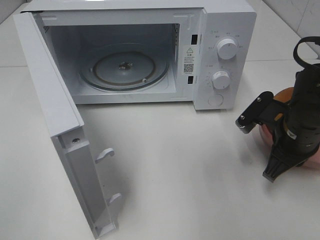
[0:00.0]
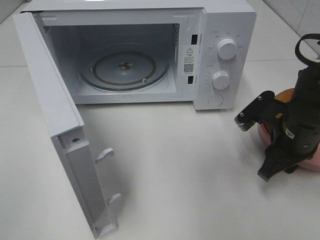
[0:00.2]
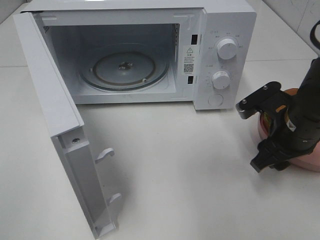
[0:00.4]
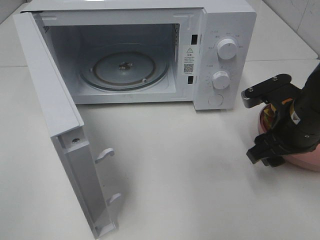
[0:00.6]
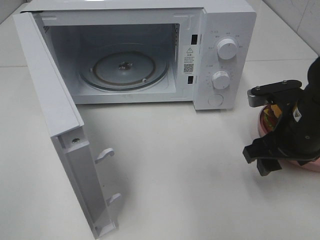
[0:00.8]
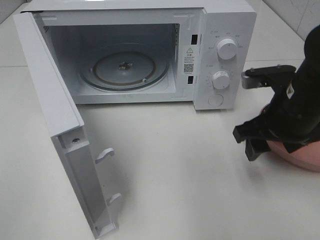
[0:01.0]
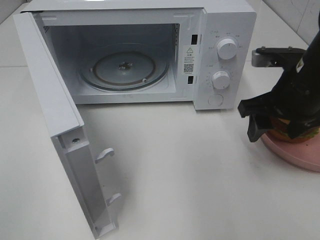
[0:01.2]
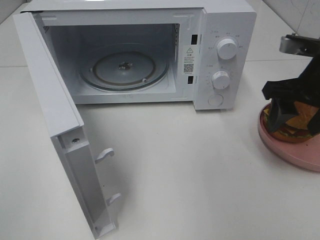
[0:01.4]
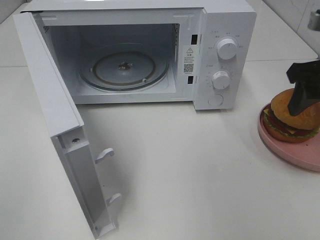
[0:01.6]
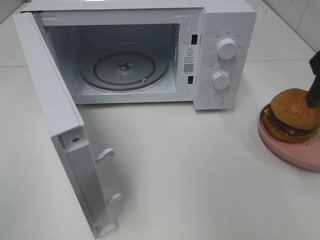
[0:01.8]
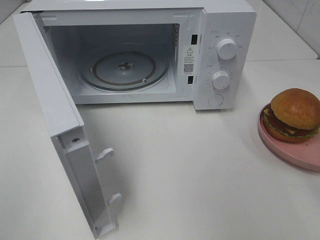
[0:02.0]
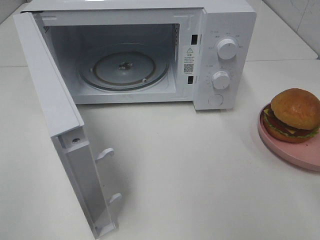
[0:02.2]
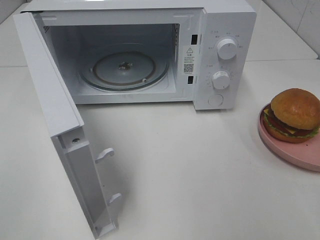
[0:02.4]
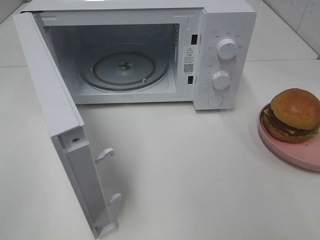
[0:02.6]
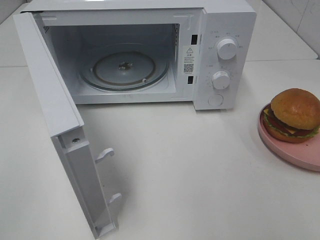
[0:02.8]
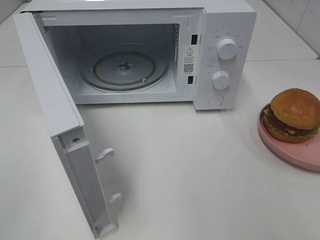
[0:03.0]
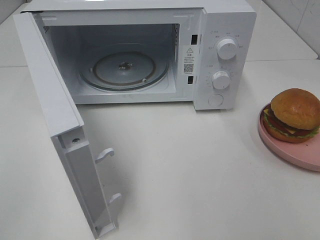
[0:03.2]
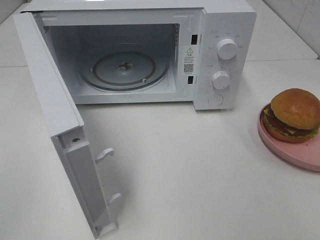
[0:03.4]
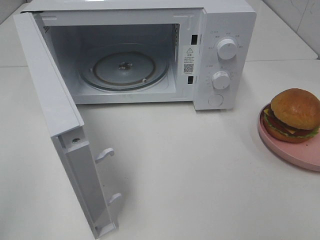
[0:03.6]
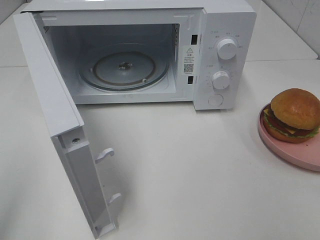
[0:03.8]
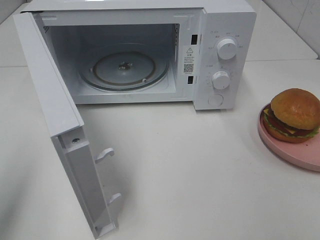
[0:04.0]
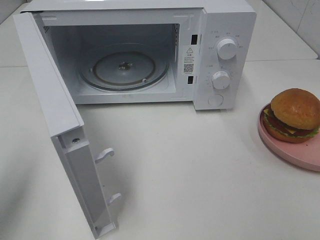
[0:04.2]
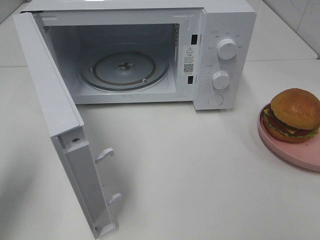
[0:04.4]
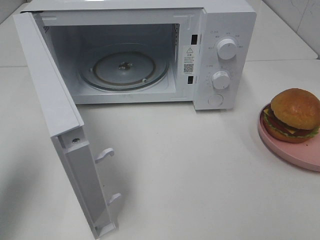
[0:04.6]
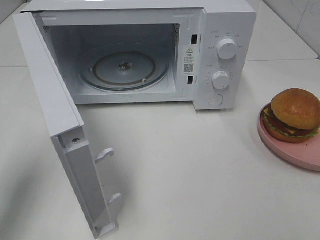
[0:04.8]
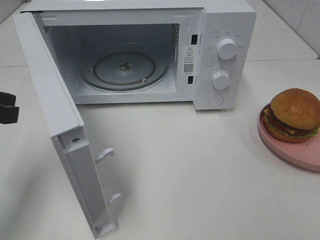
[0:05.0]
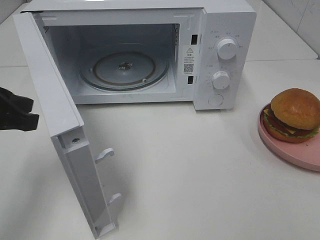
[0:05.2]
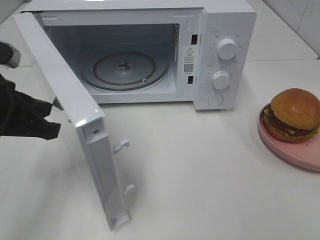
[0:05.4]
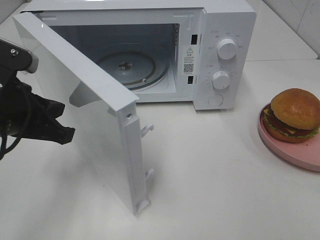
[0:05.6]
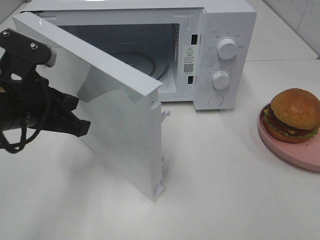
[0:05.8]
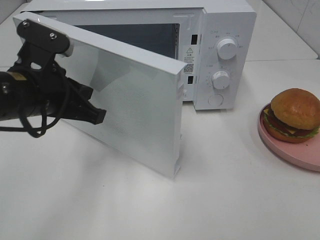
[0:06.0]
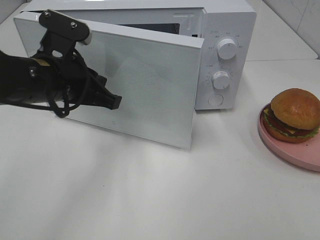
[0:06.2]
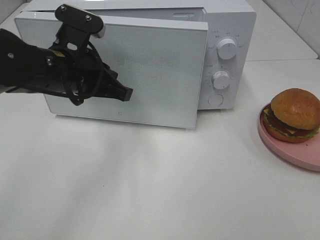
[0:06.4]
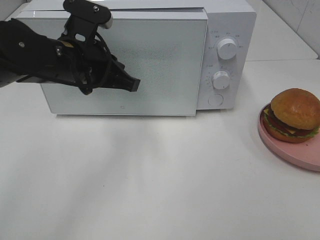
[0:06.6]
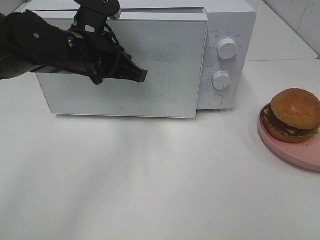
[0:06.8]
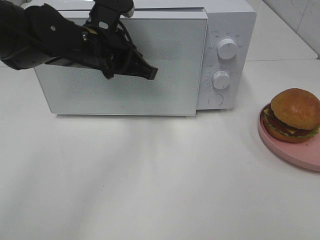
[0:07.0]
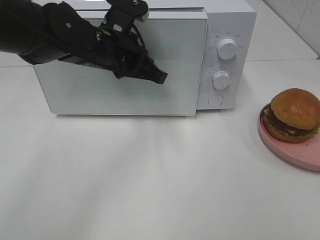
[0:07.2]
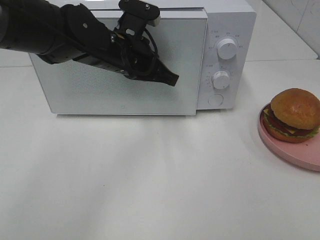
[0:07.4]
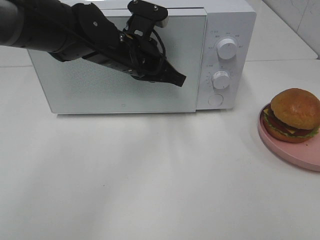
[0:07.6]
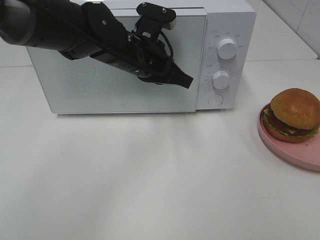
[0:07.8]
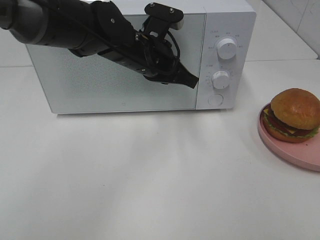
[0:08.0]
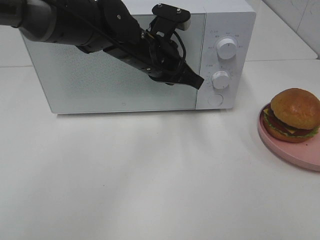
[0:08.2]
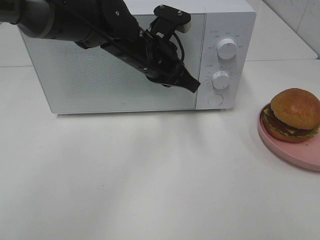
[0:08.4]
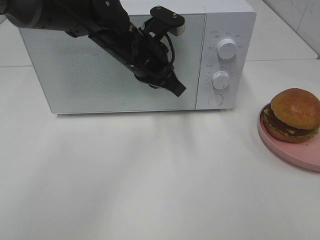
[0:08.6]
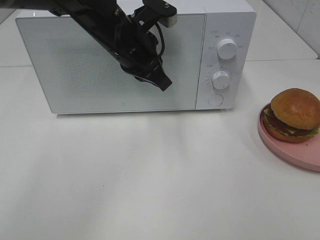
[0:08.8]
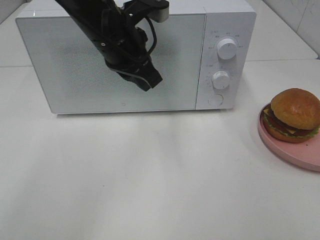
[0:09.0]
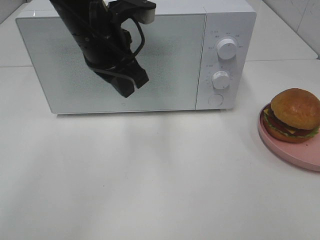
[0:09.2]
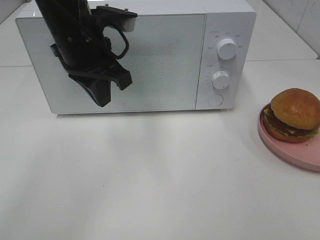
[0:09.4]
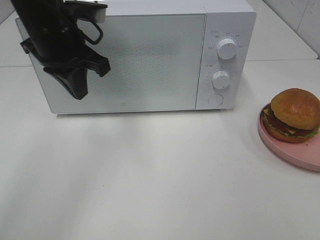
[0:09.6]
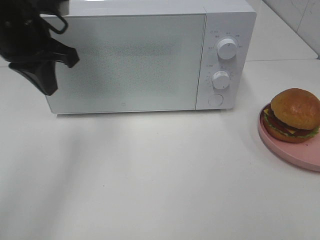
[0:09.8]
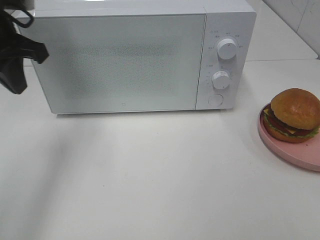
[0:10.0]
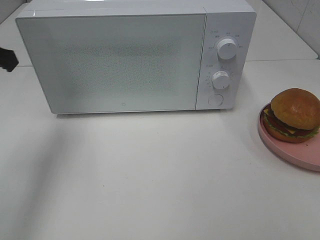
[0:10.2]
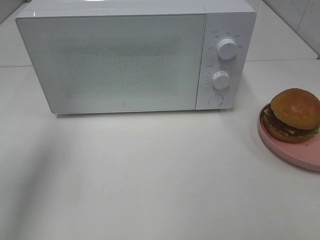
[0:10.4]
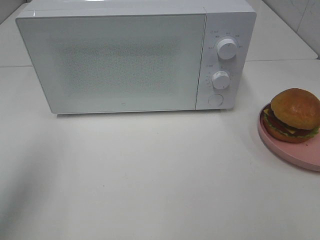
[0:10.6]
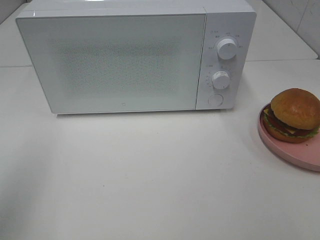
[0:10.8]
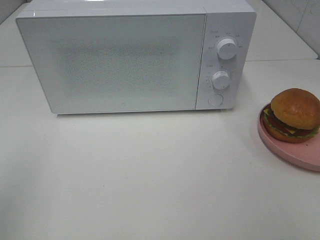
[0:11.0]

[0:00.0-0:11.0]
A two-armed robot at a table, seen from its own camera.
Task of the whole recording: Heat the burger.
Step, 0:00.2 to 0:08.2: Left hand: close the microwave door.
0:00.0 to 0:01.6: The right gripper shifts roughly 15 cm upward, and opens up.
0:01.6 to 0:03.2: The right gripper heads backward, covering some 25 cm.
0:03.2 to 0:04.8: The left gripper shifts some 20 cm forward.
0:04.8 to 0:06.2: The left gripper shifts about 15 cm to the right and forward.
0:06.2 to 0:07.8: The left gripper shifts some 15 cm to the right and forward.
0:07.8 to 0:09.4: The left gripper travels to the left and upward by some 10 cm.
0:09.4 to 0:11.0: The left gripper goes some 35 cm backward and to the left.

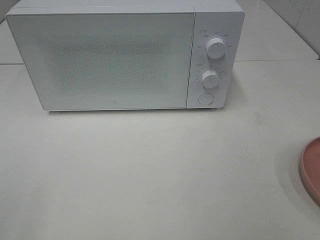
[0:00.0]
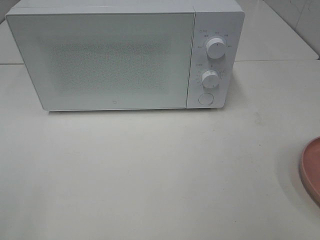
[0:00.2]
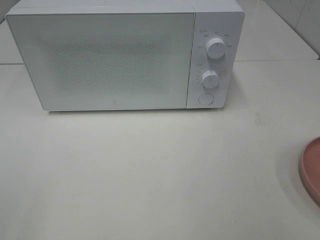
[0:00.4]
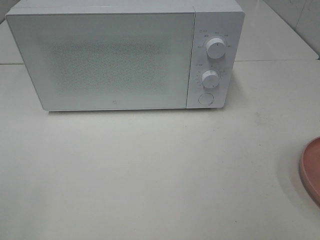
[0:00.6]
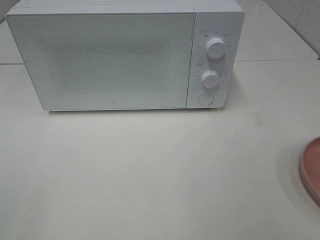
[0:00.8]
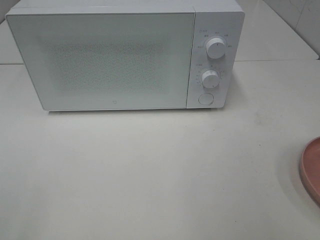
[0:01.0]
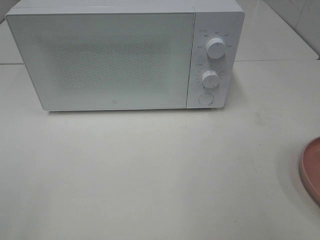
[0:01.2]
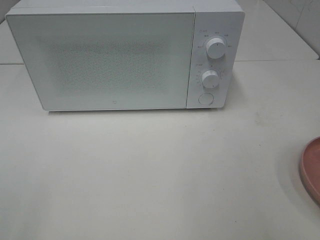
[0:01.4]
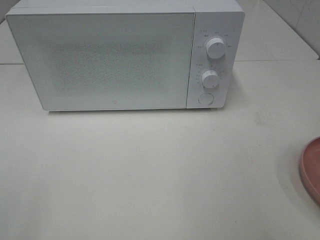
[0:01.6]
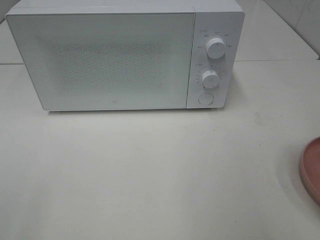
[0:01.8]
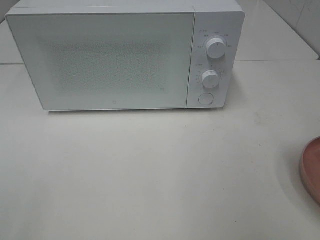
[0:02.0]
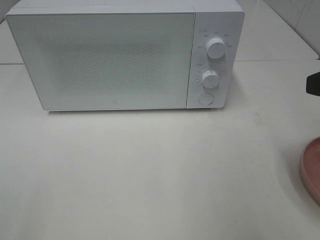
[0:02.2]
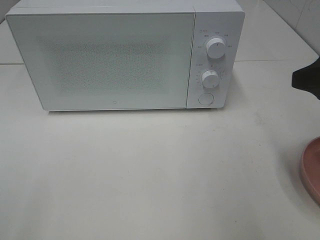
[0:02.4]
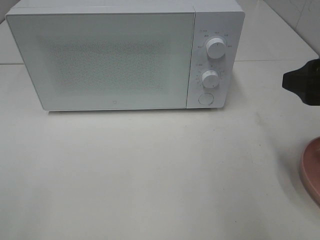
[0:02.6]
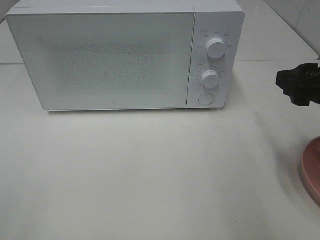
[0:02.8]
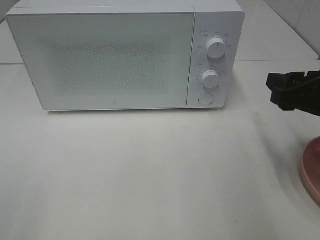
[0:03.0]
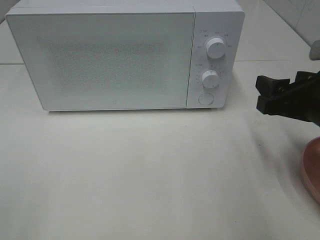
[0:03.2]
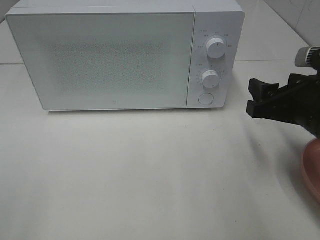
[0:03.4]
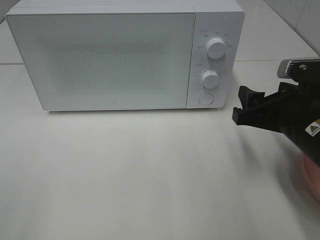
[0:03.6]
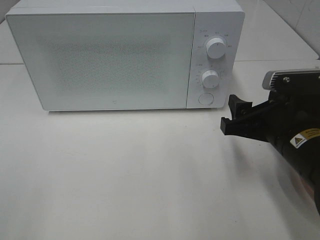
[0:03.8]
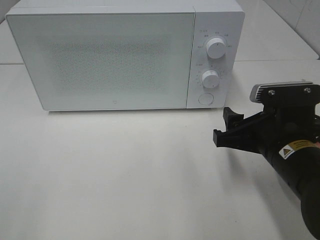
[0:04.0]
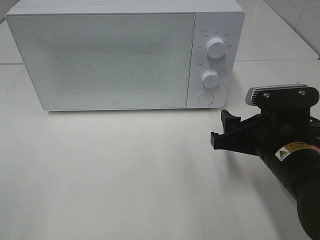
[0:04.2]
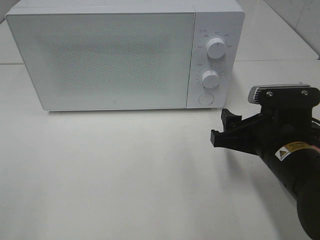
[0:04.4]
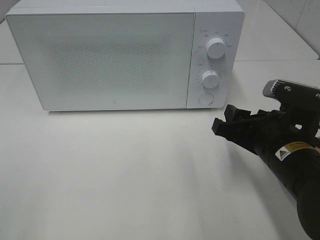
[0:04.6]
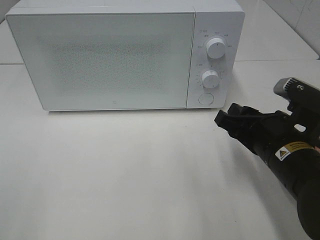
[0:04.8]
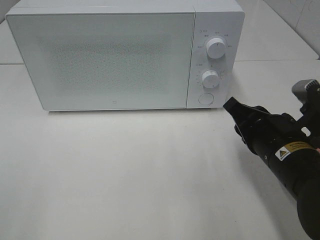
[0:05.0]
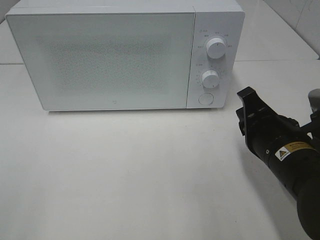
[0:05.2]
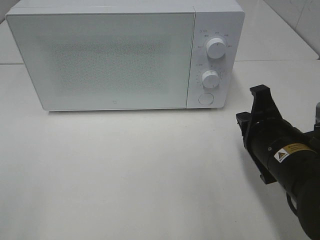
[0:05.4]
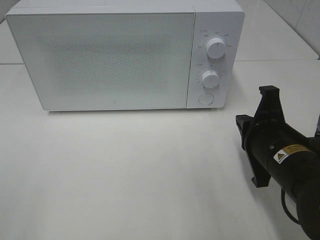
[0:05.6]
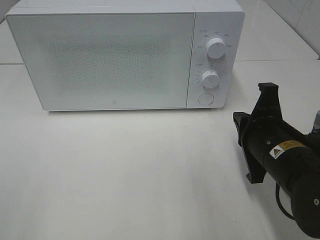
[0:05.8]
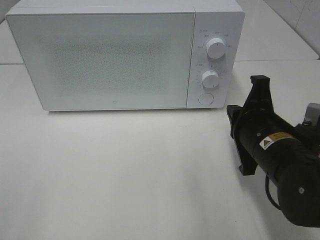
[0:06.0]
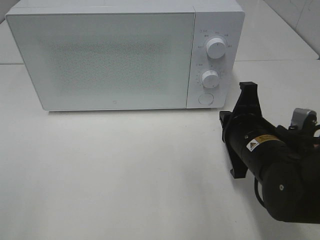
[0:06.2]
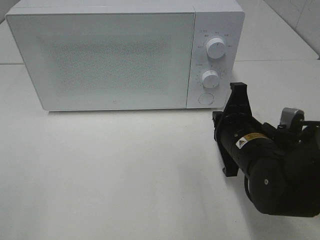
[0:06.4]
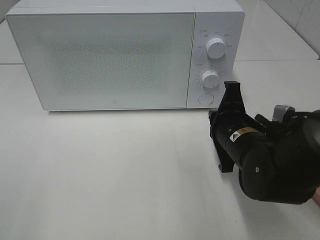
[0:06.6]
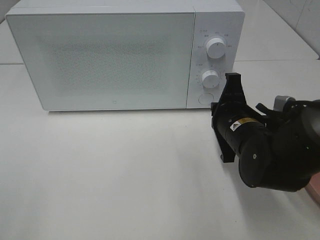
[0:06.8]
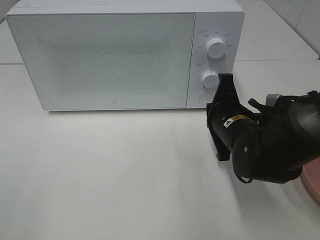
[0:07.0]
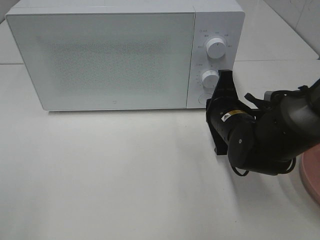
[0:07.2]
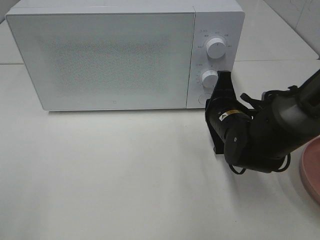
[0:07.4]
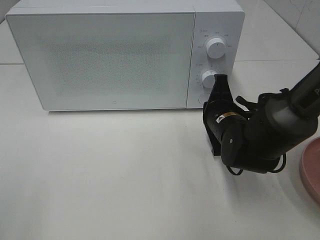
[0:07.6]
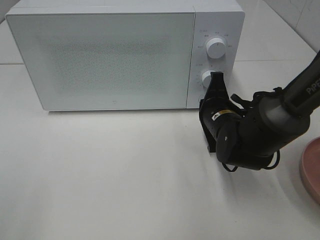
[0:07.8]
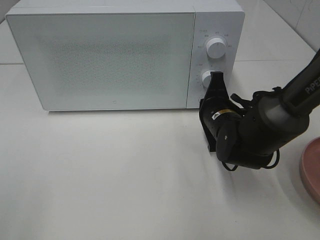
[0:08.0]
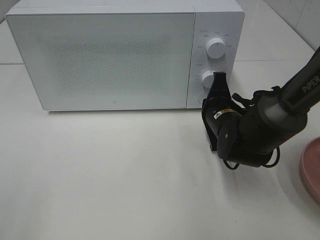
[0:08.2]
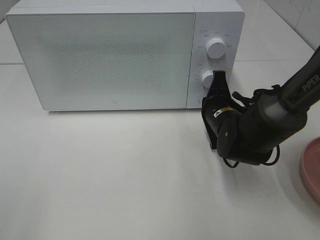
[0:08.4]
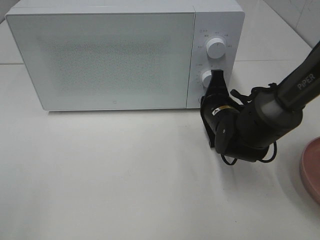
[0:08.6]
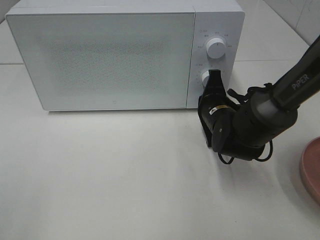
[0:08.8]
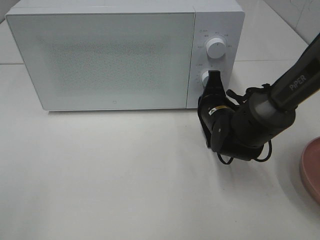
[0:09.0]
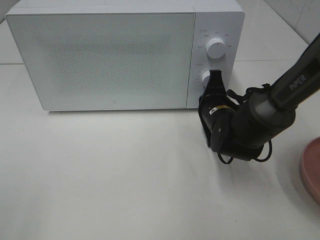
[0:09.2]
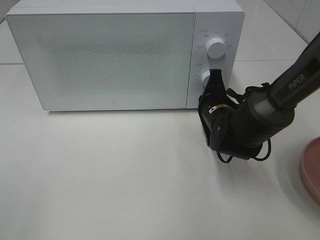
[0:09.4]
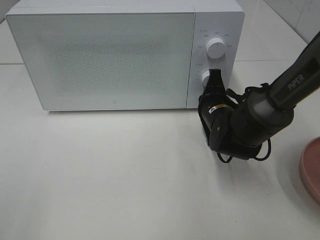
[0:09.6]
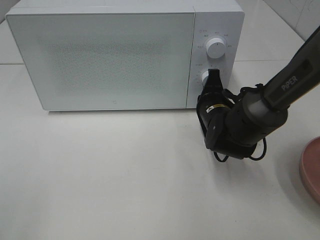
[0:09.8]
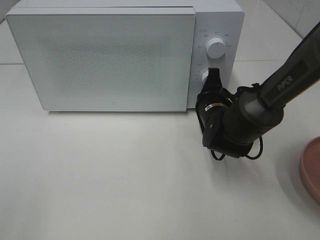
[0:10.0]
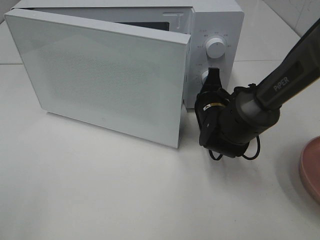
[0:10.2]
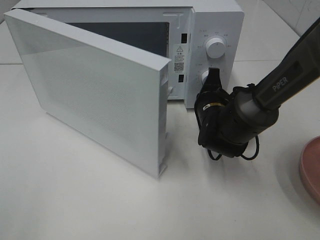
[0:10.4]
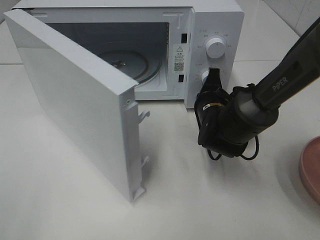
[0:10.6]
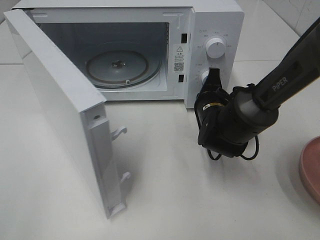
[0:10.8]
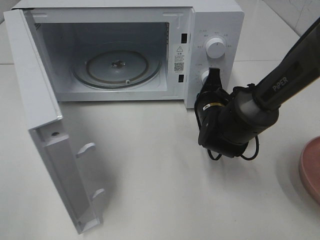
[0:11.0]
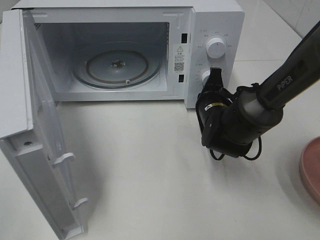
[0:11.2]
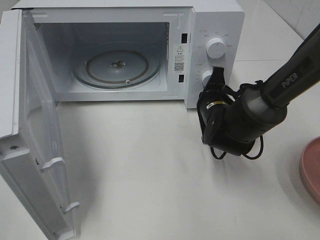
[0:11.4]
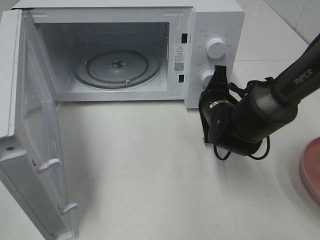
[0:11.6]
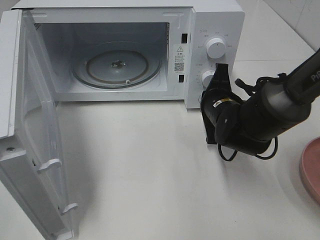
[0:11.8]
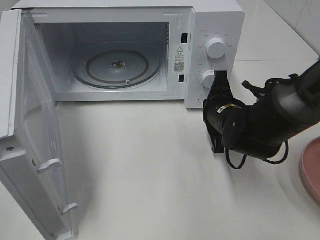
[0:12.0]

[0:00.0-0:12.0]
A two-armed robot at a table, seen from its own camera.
Task of the whole recording: Heat the burger.
Step, 0:00.0 to 0:11.8: Right hand: press the switch.
0:01.6 to 0:03.0: The right gripper moves forward and downward, about 15 cm.
0:03.0 to 0:04.4: The right gripper travels to the left and downward by approximately 10 cm.
0:04.4 to 0:06.0: The right gripper closes.
0:06.0 to 0:07.6: The right gripper is displaced forward by some 10 cm.
0:07.6 to 0:09.0: The grippers make only small movements.
0:10.4 to 0:12.0: The right gripper shifts by some 5 cm.
